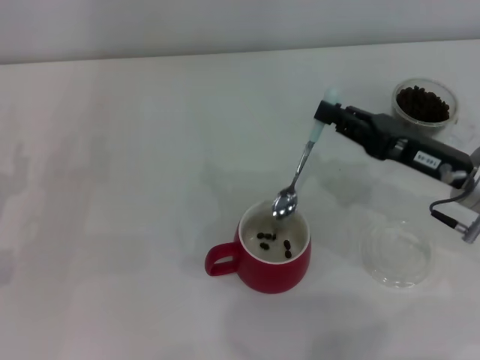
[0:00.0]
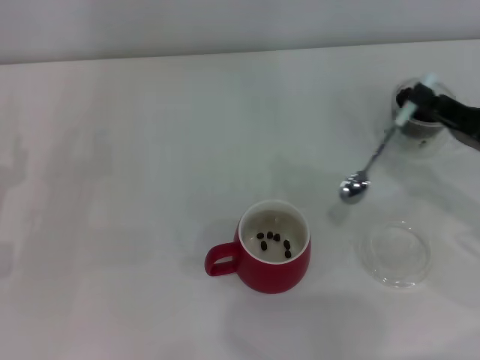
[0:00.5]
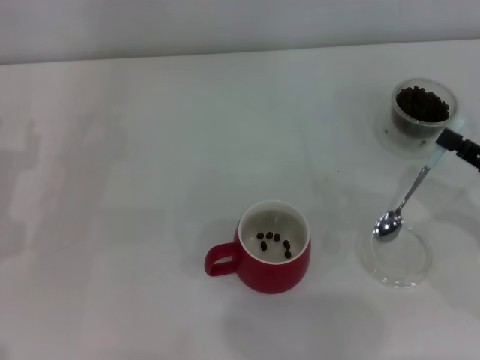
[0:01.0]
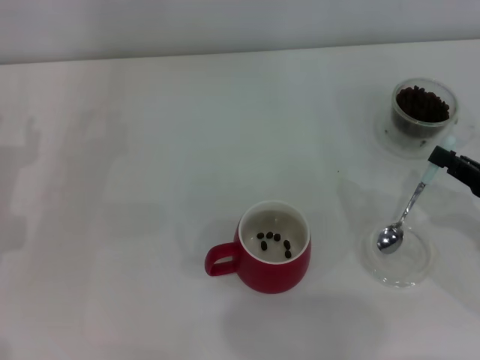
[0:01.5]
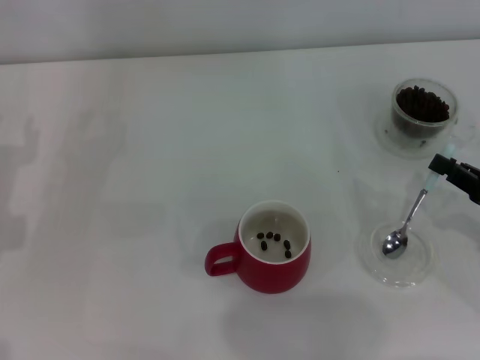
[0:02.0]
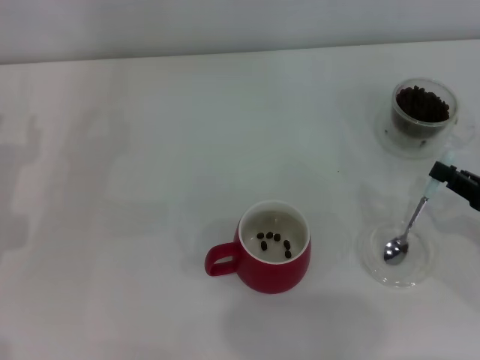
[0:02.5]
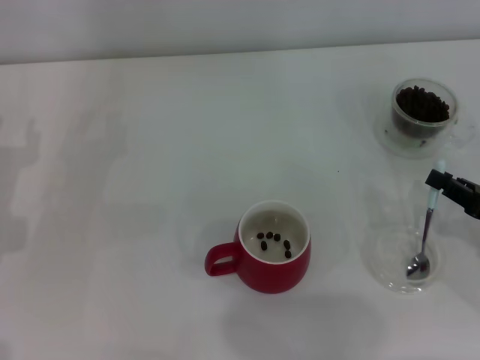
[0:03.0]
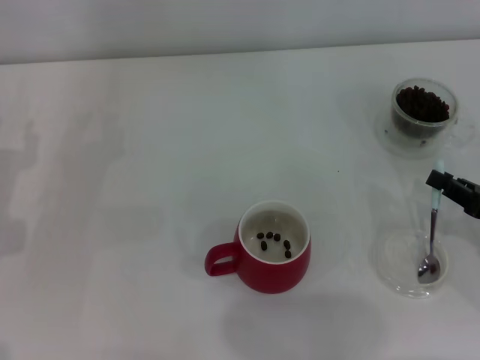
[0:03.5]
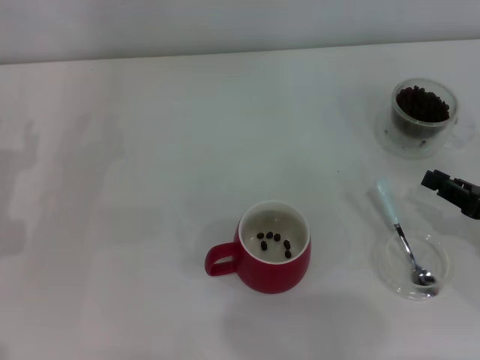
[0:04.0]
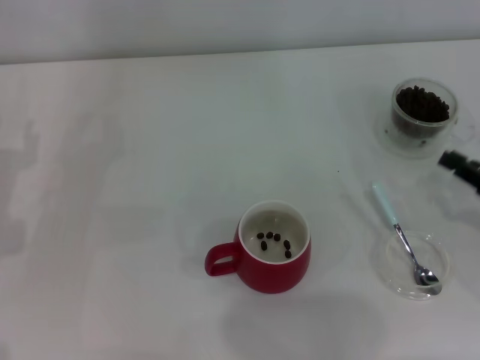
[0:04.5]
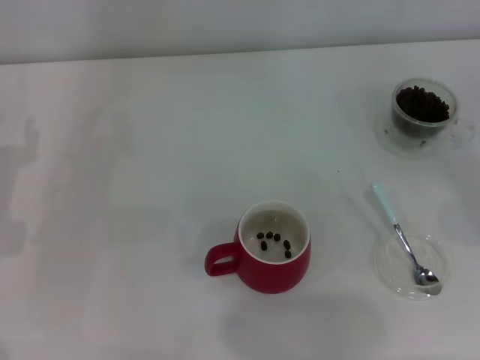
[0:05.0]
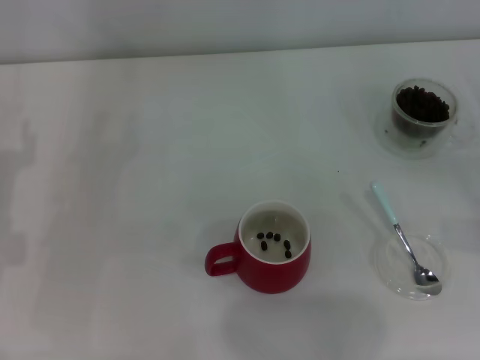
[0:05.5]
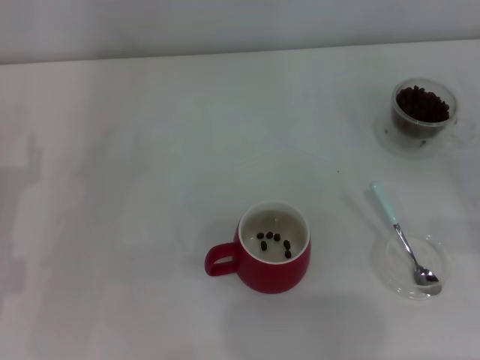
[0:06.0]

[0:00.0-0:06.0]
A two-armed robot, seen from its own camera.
Task of the whole recording: Use a blue spoon to take out the coffee beans from the glass and pour them into the red cup.
Step, 0:00.5 to 0:03.5: Place the spoon back in its original place with the right gripper.
0:00.0 to 0:02.0: The right gripper goes some 10 cm to the right and backward.
0:02.0 to 0:04.0: The grippers stay close to where they were, moving slightly.
0:04.0 to 0:06.0: The right gripper goes some 5 cm to the right.

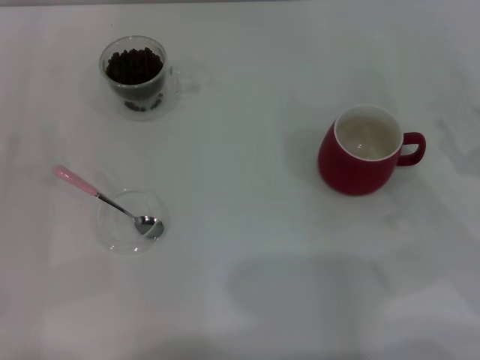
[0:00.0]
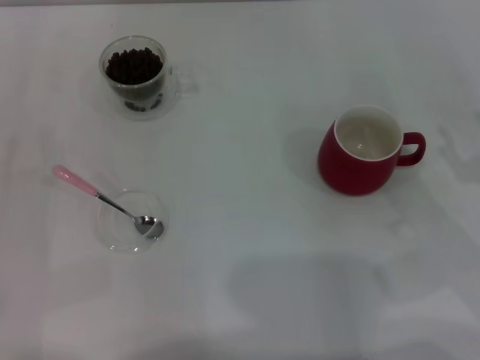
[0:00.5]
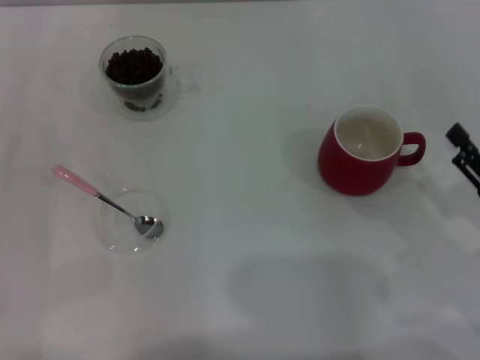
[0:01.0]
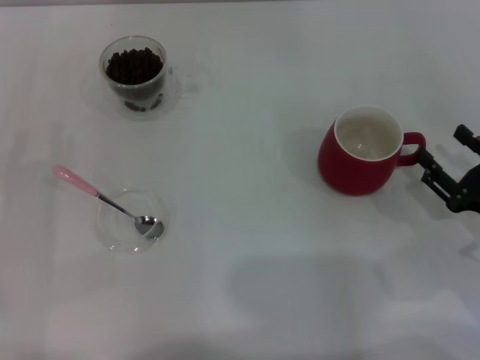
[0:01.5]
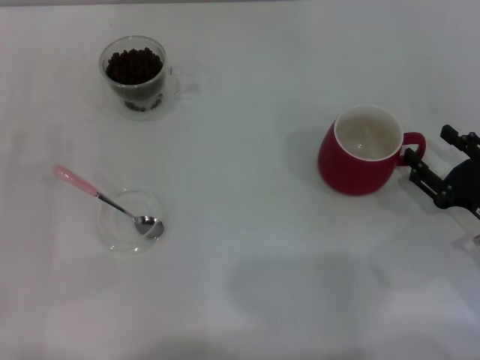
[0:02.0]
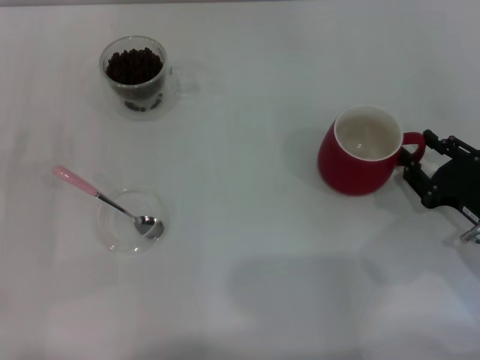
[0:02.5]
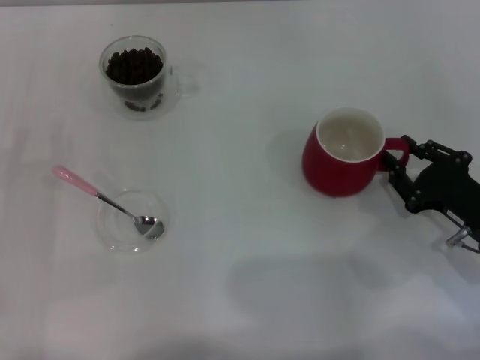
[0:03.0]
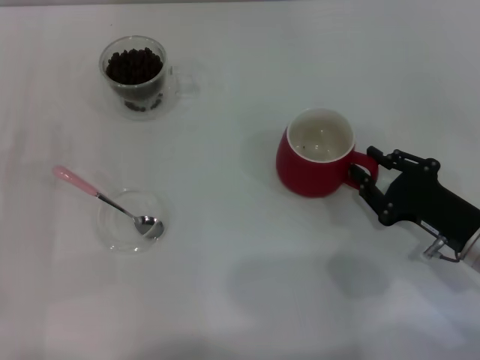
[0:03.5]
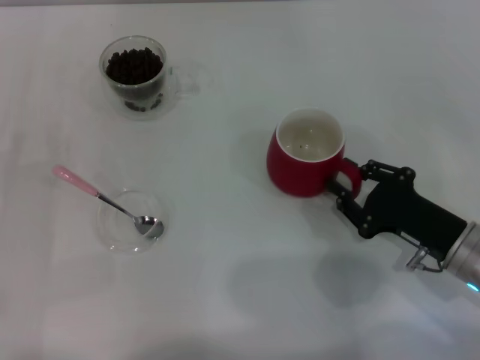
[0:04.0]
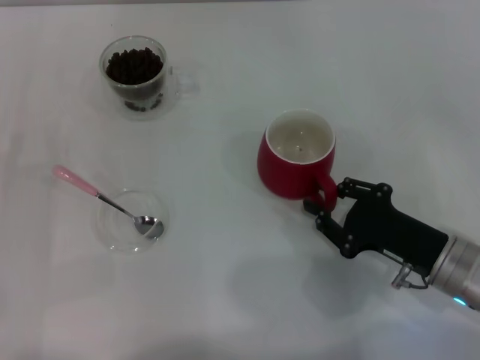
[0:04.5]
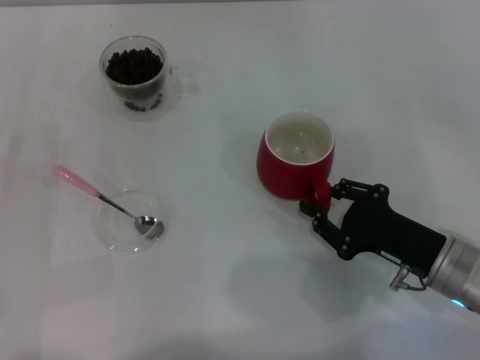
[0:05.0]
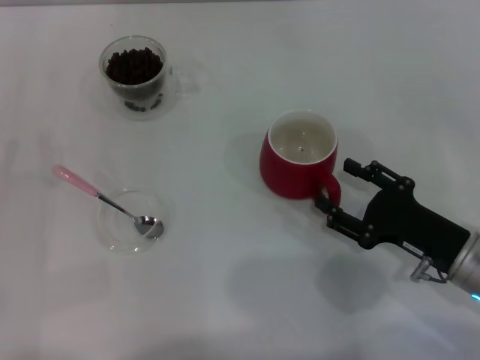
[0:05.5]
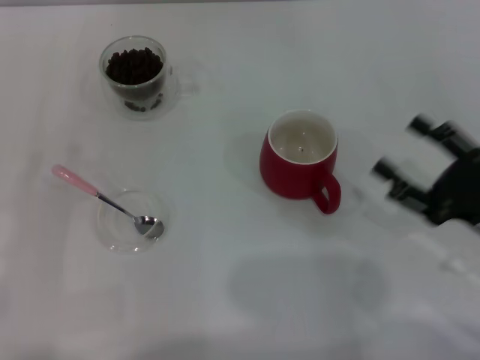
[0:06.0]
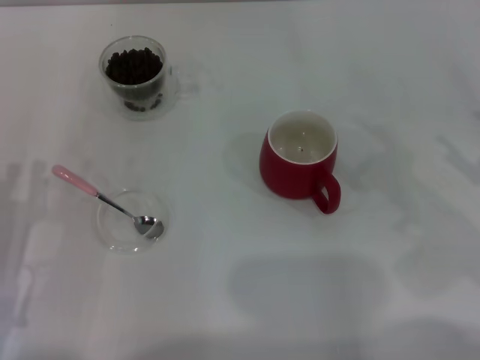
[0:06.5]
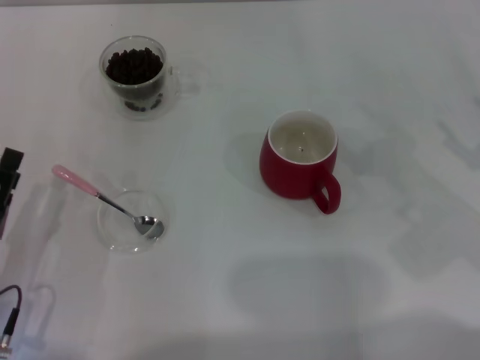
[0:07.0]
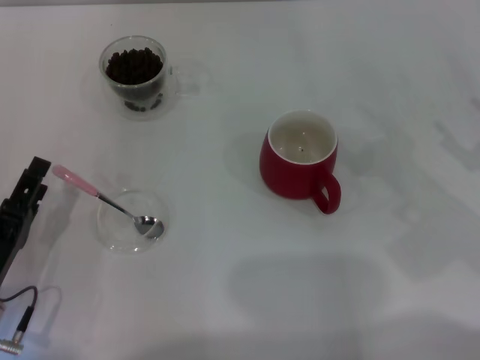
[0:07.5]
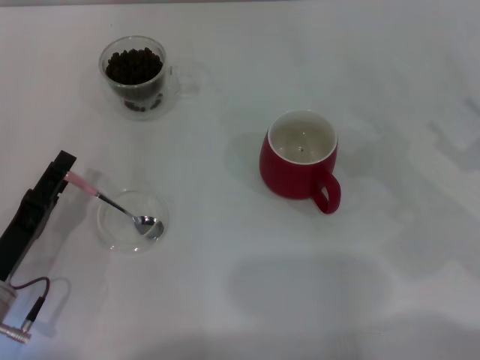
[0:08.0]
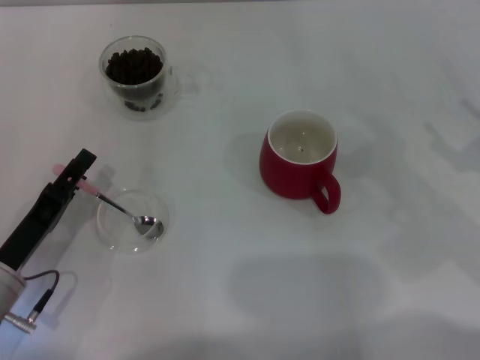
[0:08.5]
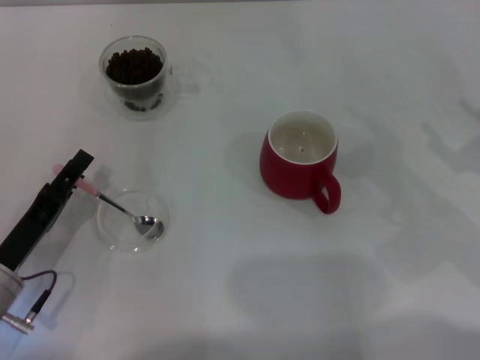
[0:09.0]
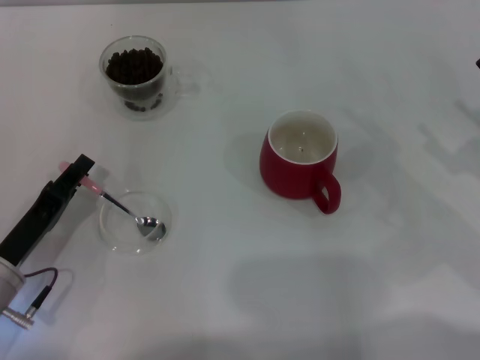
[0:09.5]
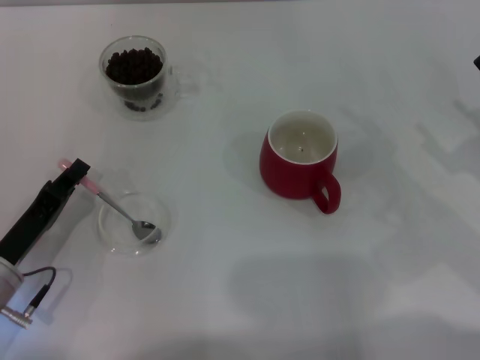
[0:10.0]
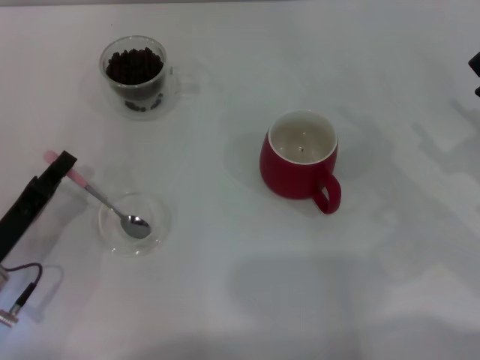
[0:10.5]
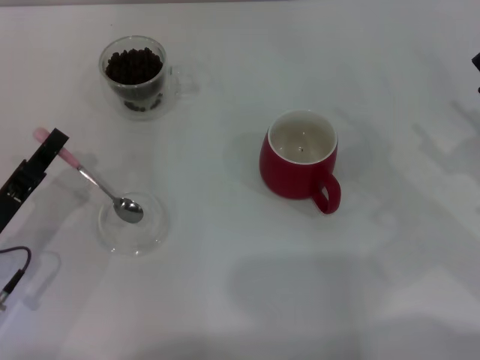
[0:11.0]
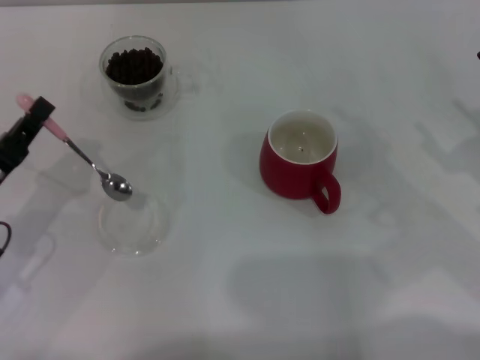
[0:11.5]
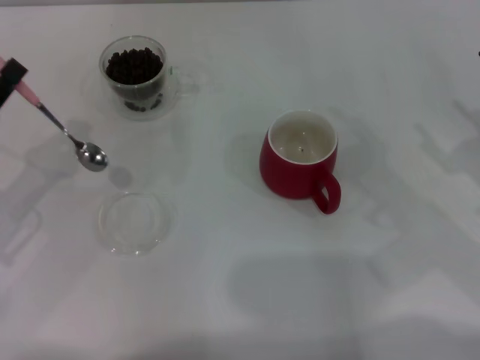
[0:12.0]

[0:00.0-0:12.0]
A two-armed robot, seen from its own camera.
Task of the whole recording: Use a pink spoon to take out the coffee beans from the glass and pour them into the red cup.
Step, 0:00.0 to 0:05.5: Move the cup to the center of view with the left gripper.
Step, 0:06.0 to 0:11.0: Pick up the spoon with the right gripper.
0:00.0 to 0:02.0: The right gripper goes some 5 cm downward.
0:02.0 to 0:04.0: The right gripper shifts approximately 5 cm to the left, and closes.
0:04.0 to 0:06.0: The right gripper moves about 5 cm, and opens its fingers.
0:06.0 to 0:08.0: The two grippers go some 5 cm to the right. The left gripper opens.
0:08.0 to 0:10.0: The left gripper closes.
0:10.0 to 0:12.0: The left gripper travels upward by some 10 cm.

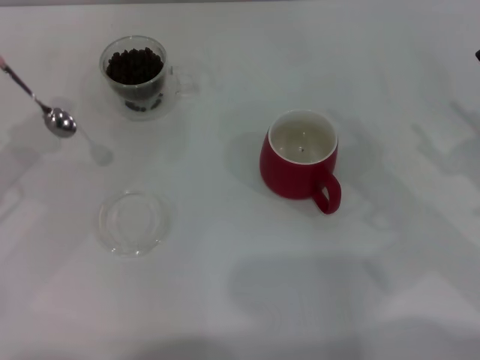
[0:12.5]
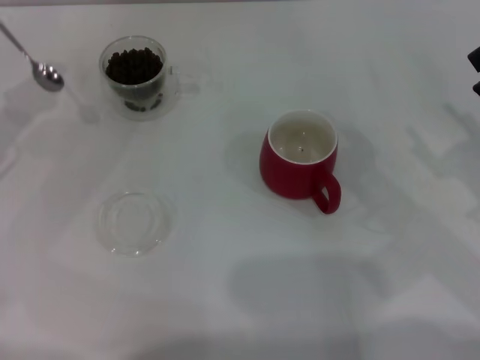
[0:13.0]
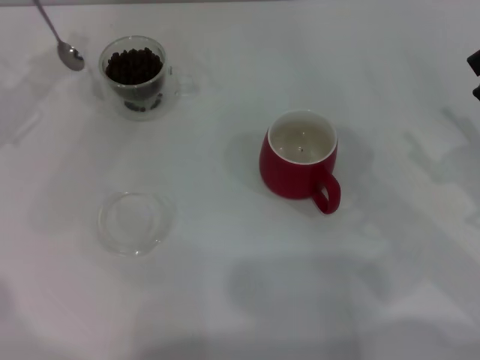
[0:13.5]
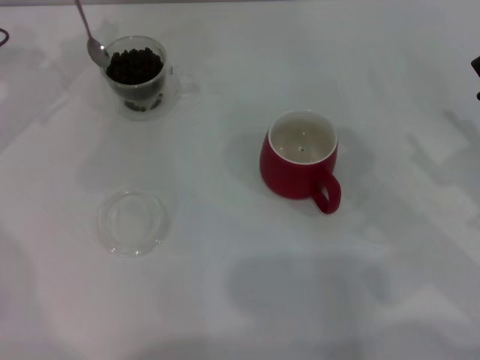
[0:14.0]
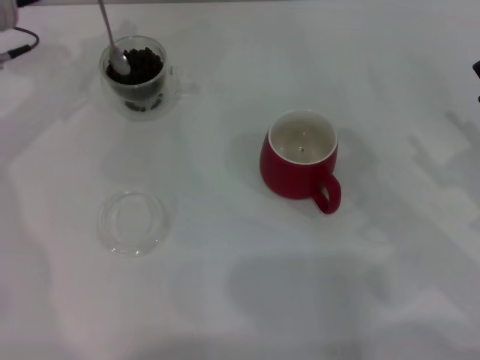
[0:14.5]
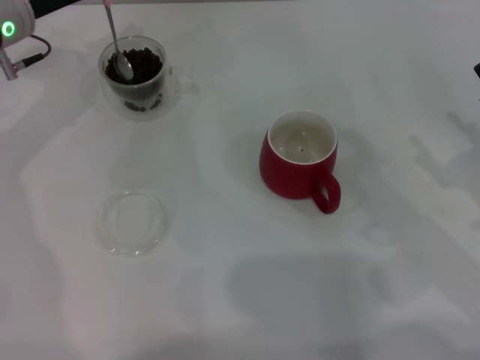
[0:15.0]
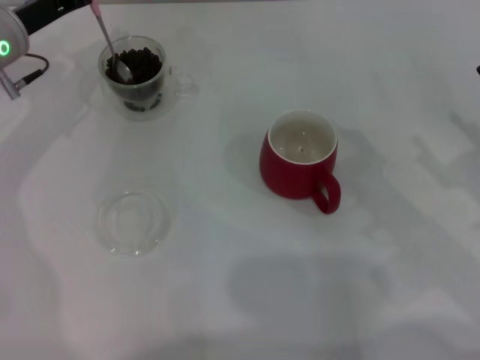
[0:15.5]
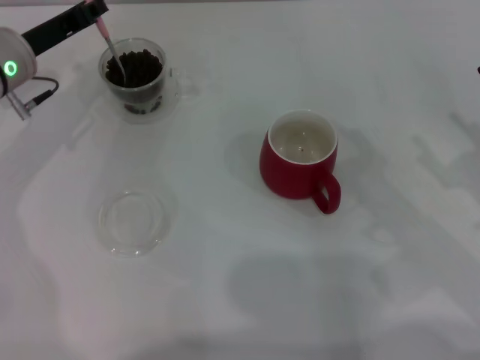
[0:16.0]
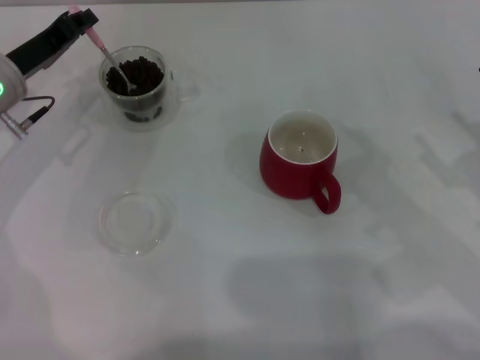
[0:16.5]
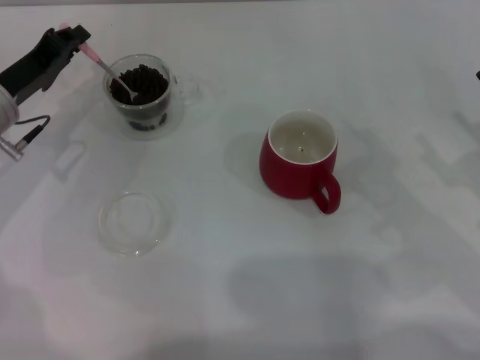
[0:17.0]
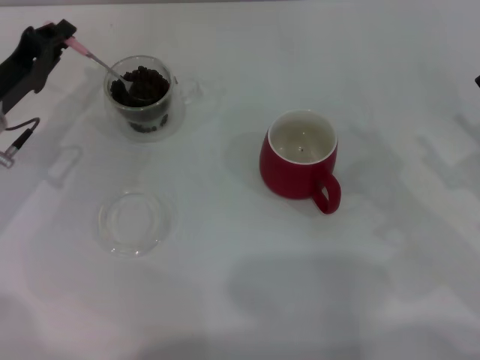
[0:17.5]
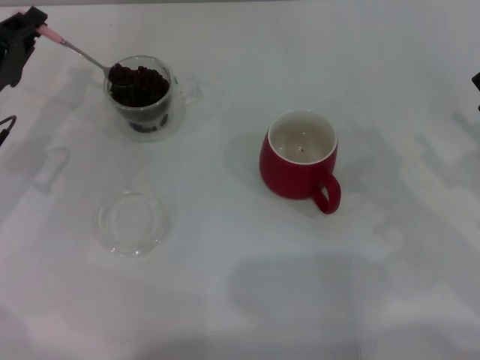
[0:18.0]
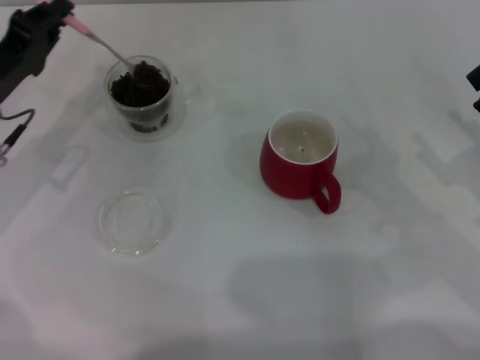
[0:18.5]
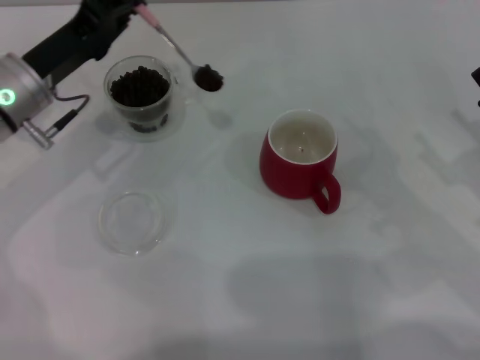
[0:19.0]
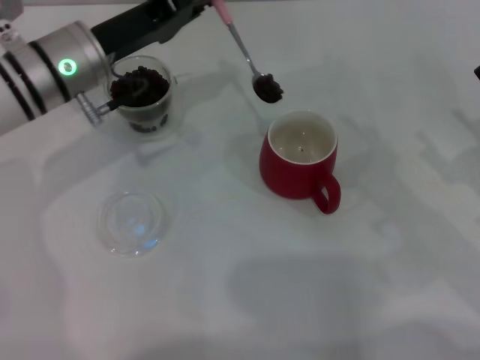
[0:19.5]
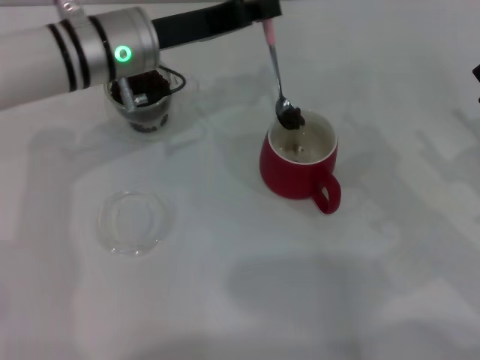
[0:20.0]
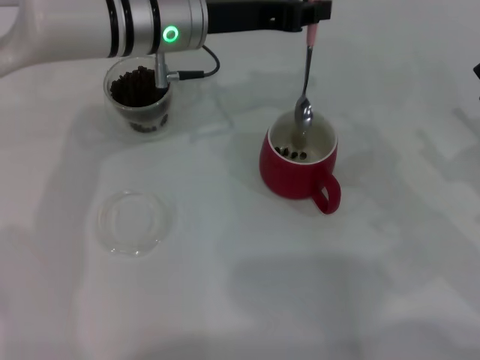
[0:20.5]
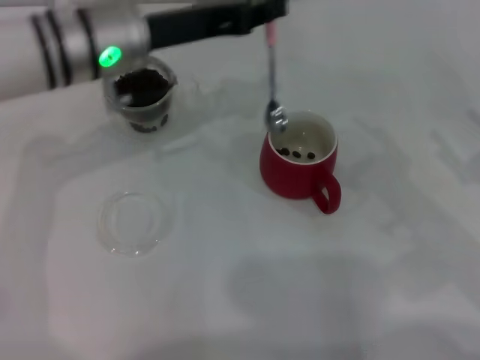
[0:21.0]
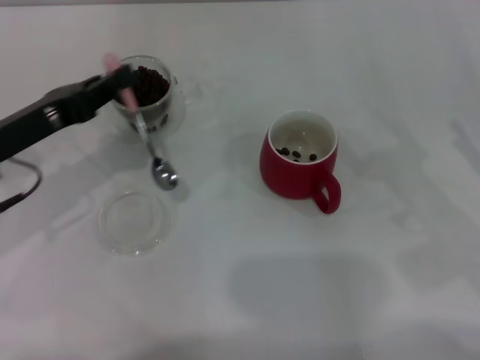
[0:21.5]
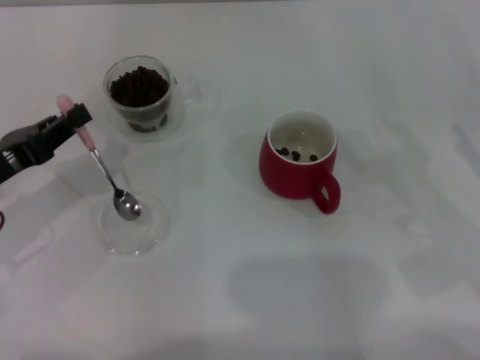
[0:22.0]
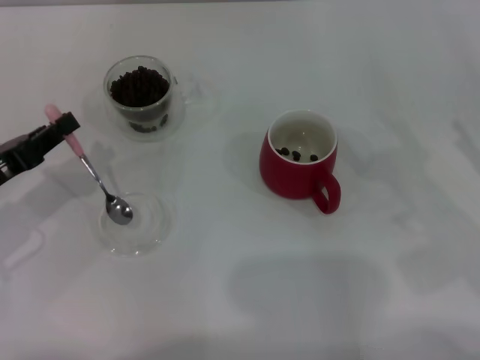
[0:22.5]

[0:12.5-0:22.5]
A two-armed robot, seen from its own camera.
Task of the whole recording: Use a pink spoon to take out the coffee beans from the glass and pour them into the red cup.
0:12.5 to 0:14.5: The left gripper goes roughly 20 cm forward and to the right.
0:14.5 to 0:16.5: The left gripper heads downward and backward, covering approximately 10 cm.
0:16.5 to 0:18.5: The left gripper changes place by roughly 5 cm.
0:18.5 to 0:20.5: The left gripper goes roughly 20 cm to the right and upward.
0:20.5 to 0:22.5: The left gripper travels to the left, backward and downward by approximately 30 cm.
